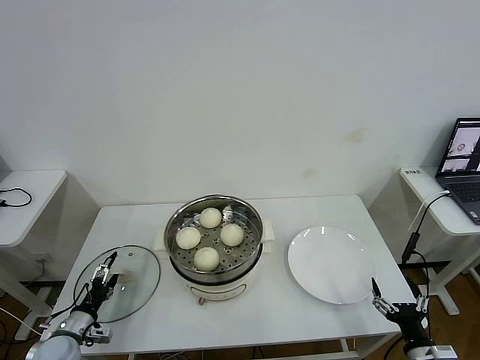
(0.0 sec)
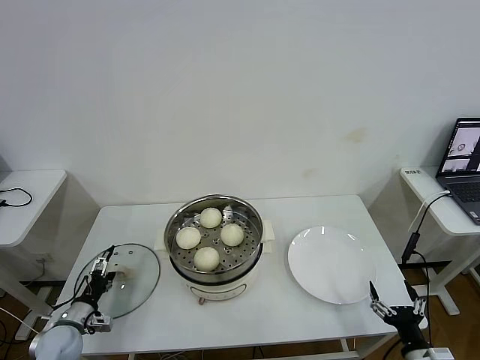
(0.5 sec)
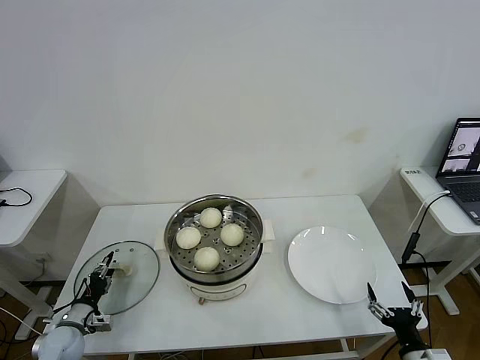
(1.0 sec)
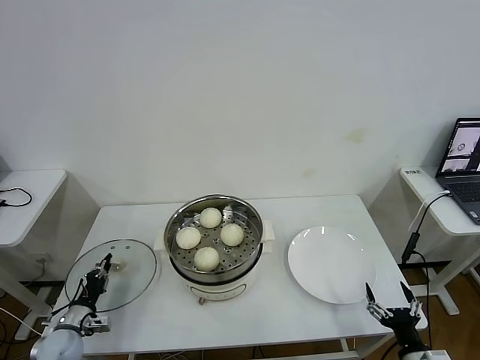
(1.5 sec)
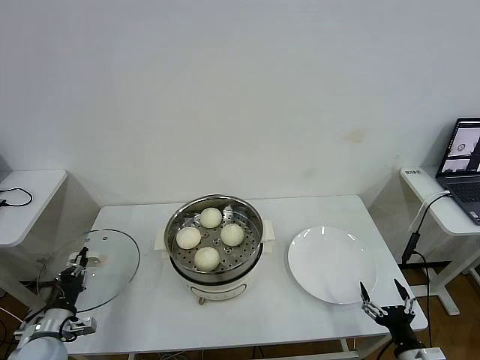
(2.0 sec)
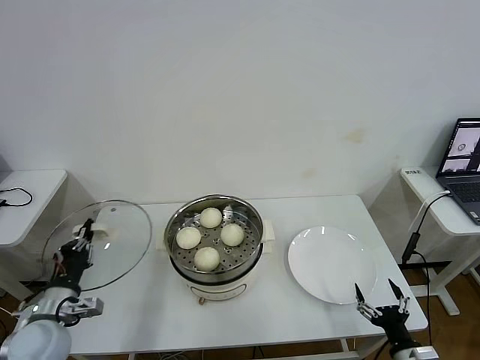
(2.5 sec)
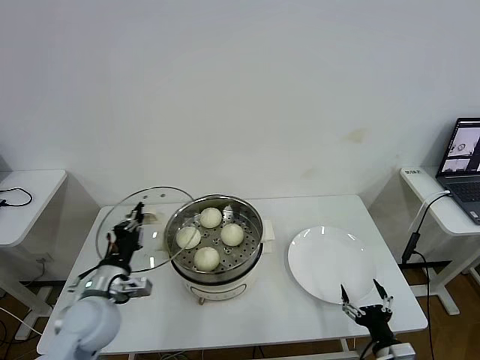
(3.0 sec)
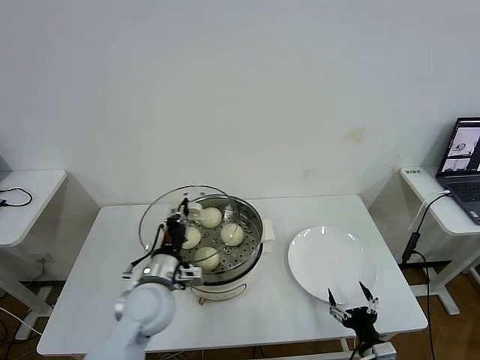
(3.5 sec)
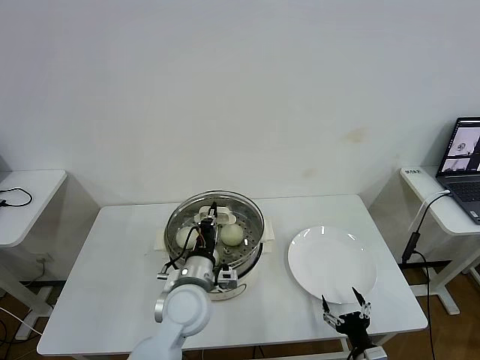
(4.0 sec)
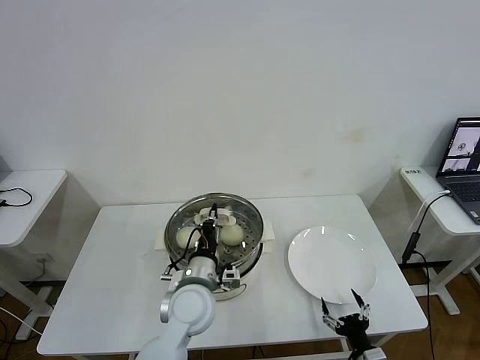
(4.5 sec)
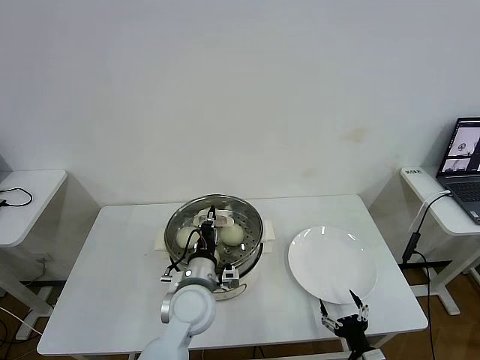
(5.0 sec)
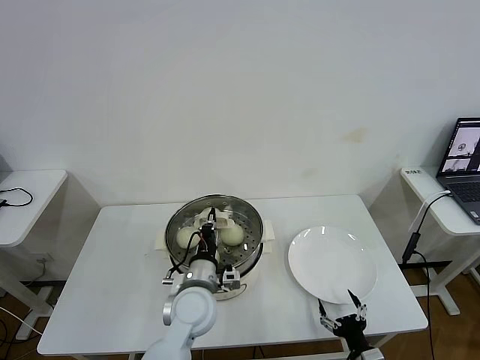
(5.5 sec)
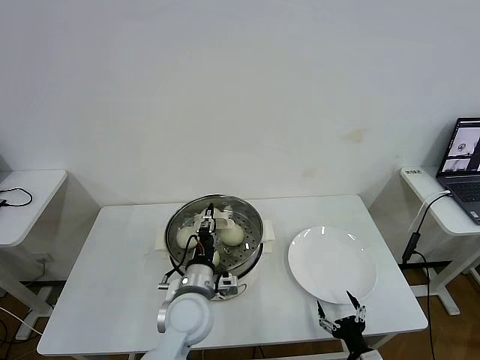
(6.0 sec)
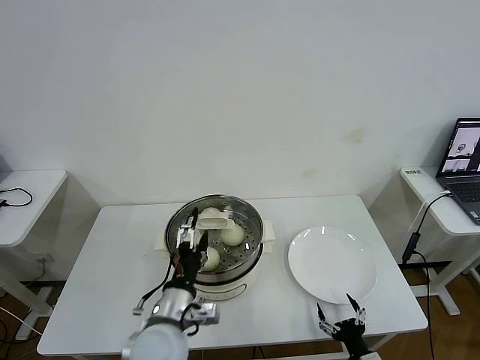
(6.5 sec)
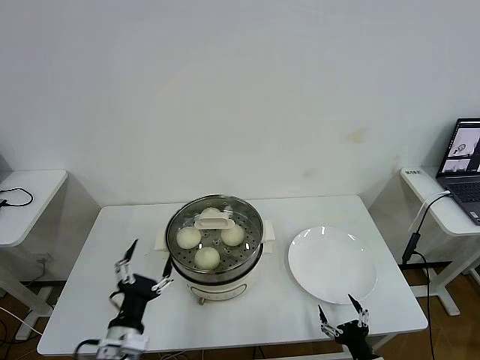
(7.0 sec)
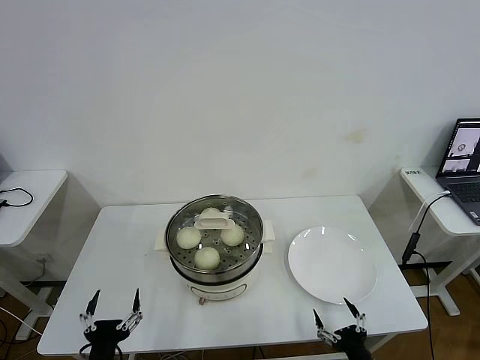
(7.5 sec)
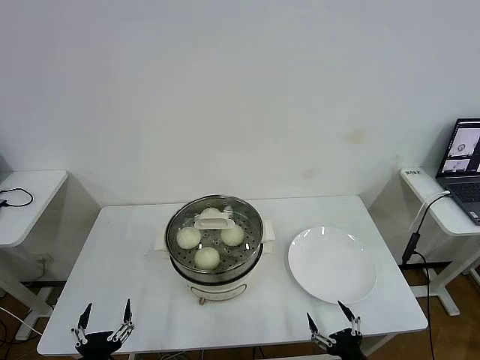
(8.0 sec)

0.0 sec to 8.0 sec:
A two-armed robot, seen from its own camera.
Task of the whole recording: take steamed baozi put them in steamer then cover it.
Step, 2.0 sec to 6.0 sec: Place the pot lid on the steamer with left gripper.
0.0 sec to 2.0 sec: The left gripper closes up.
2.0 sec to 4.0 sec: The left gripper is displaced to the right by roughly 30 cm. The right gripper is displaced to the left by approximately 5 cm.
4.0 sec to 6.0 sec: The left gripper opens up.
6.0 sec to 8.0 sec: The left gripper goes roughly 30 cm backward and to the left, and opens its fingers. The right gripper shifts approximately 5 cm upward.

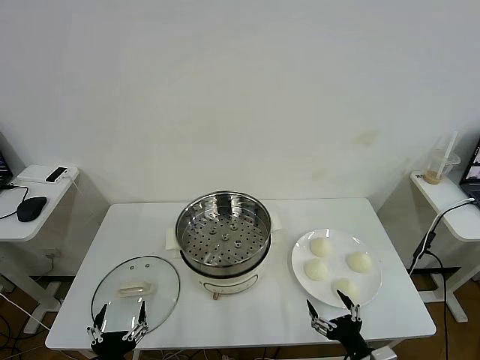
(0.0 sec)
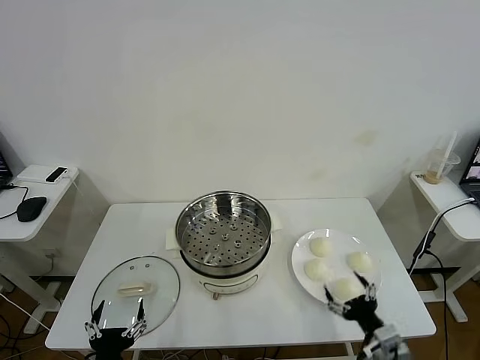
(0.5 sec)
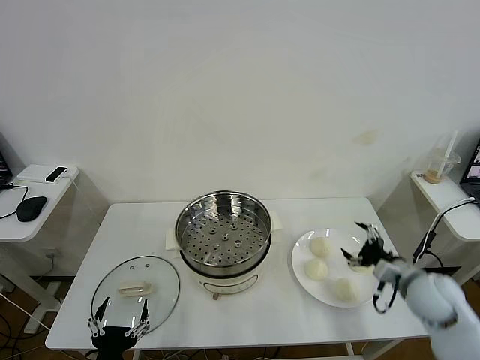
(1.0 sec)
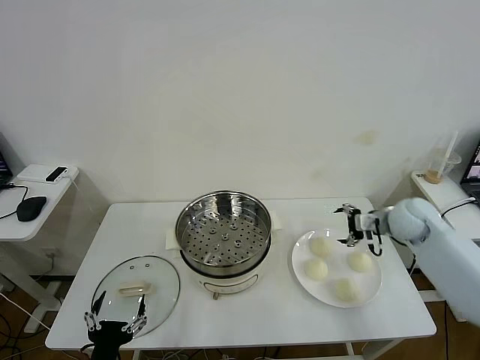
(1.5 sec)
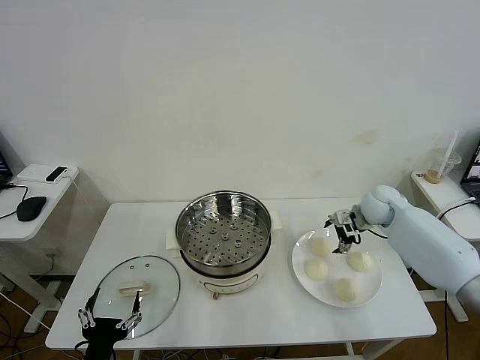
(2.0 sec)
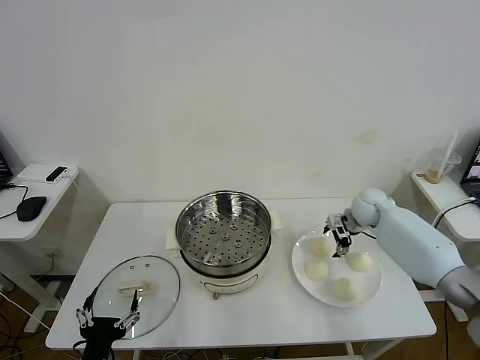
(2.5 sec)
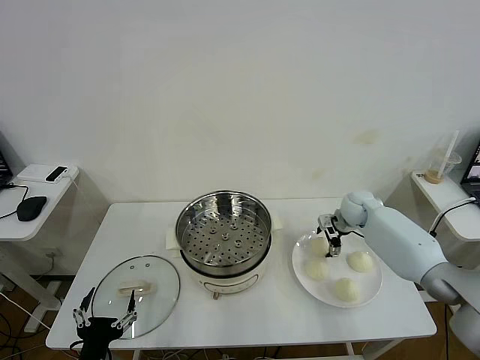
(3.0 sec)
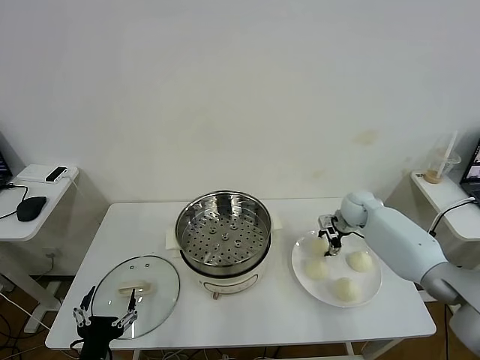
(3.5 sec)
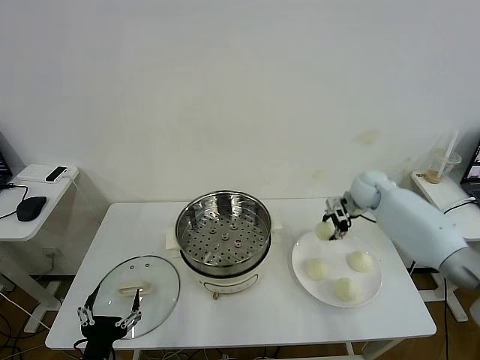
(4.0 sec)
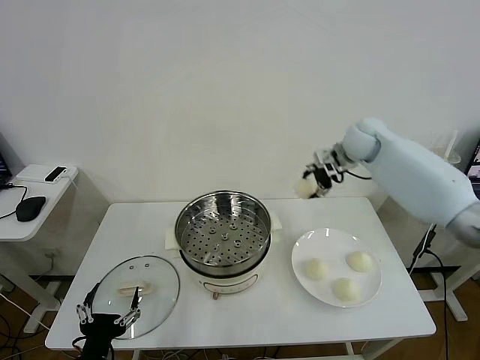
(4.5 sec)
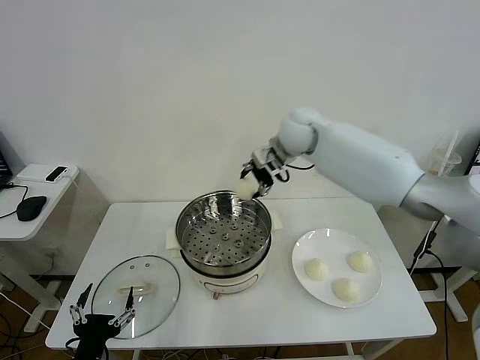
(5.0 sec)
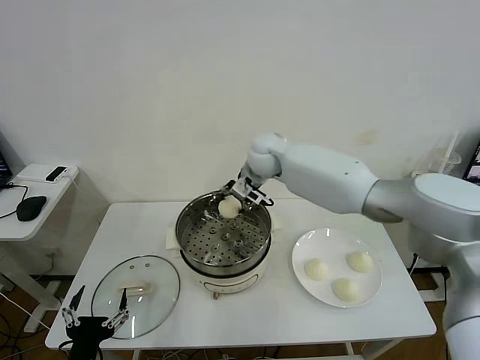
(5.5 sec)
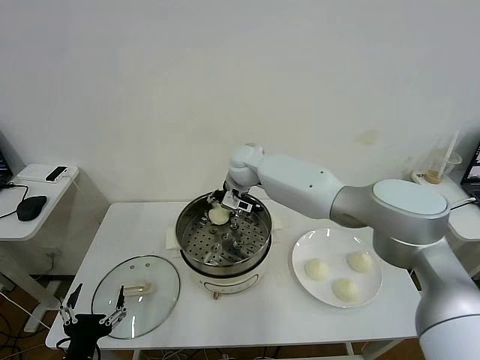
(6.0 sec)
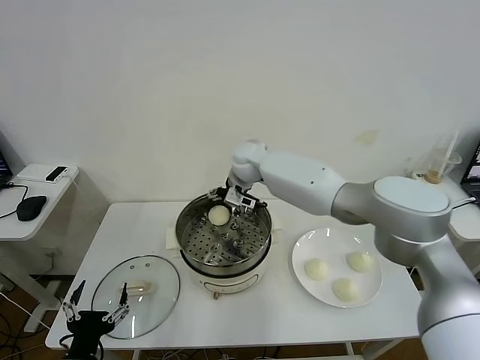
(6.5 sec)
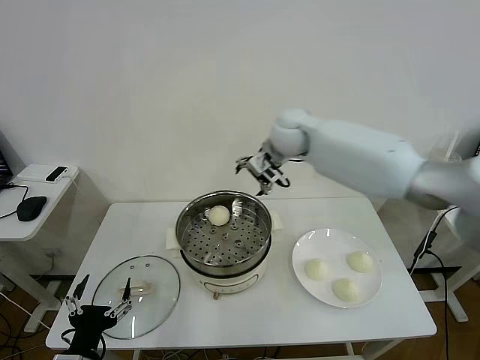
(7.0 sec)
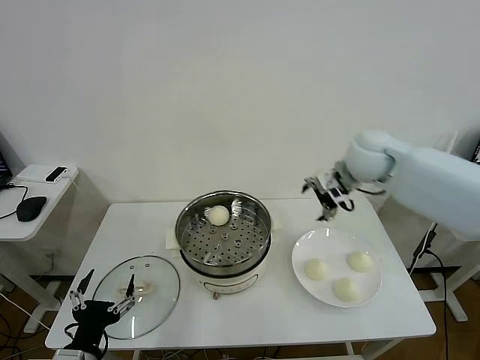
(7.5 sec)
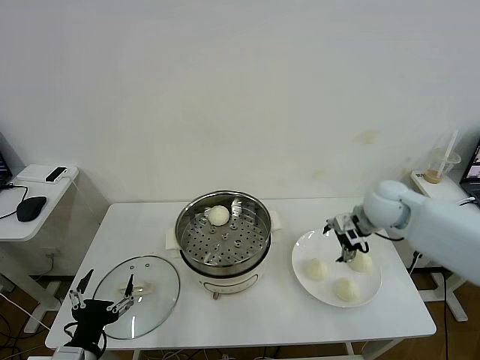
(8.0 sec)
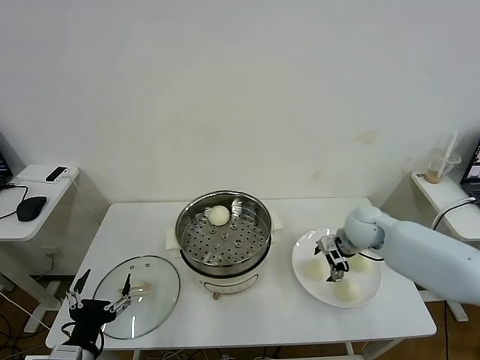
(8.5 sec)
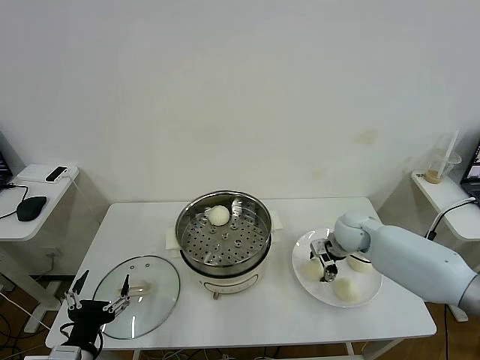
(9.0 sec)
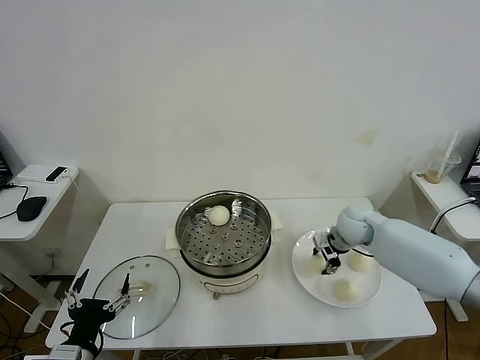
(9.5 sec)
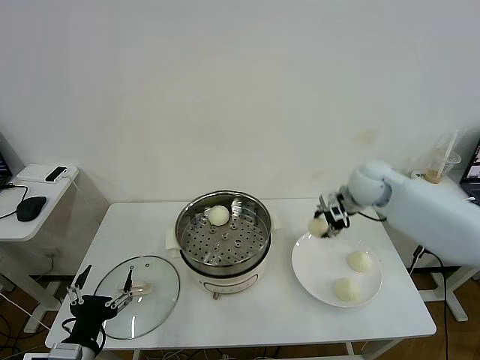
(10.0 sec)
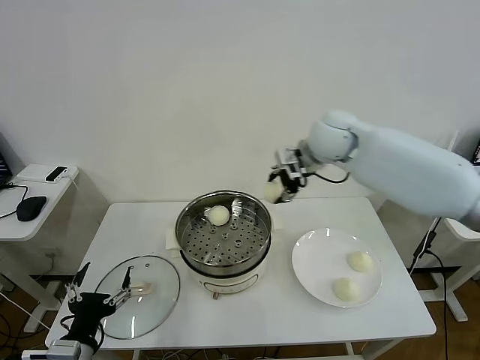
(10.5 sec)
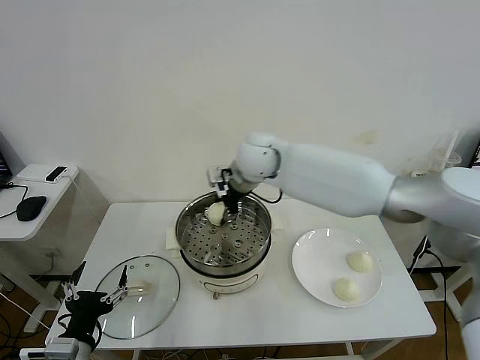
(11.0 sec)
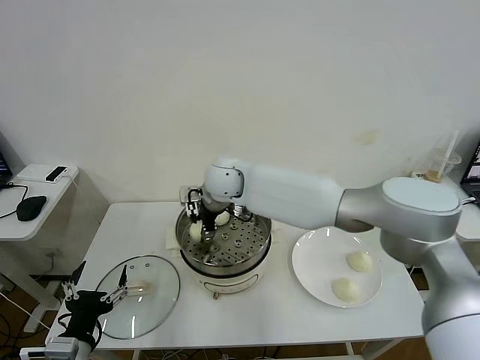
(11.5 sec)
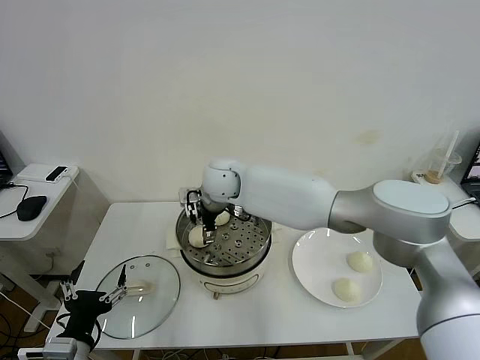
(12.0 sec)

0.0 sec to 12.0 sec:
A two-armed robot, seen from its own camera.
Task of the whole recording: take steamed baozi put them in steamer then cover it.
Step, 0.0 sec to 3.5 sec: Grasp the baozi in the plate with right gripper.
Step, 4.0 sec to 6.0 sec: Place the baozi on the steamer with right gripper.
Step, 6.5 sec to 9.0 sec: Grasp the baozi in the plate with right gripper.
Step, 9.5 sec to 12.0 sec: Place the baozi on the steamer with right gripper.
2.0 sec to 4.0 sec: The right gripper is displaced upward by about 5 cm, and closes up.
4.0 sec to 6.0 sec: The right gripper is displaced to the left by about 30 cm.
6.0 sec to 8.0 sec: The right gripper goes approximately 35 cm to the right and backward, and opens.
8.0 sec to 10.0 sec: The right gripper travels upward and forward by approximately 10 cm, and closes its fingers.
10.0 sec to 12.0 sec: The right gripper is displaced to the left by some 30 cm, and opens up.

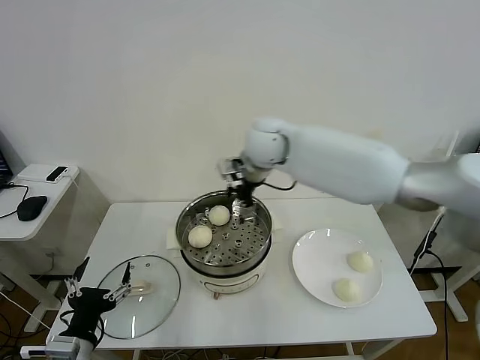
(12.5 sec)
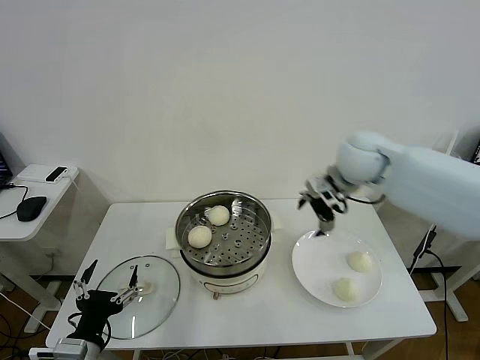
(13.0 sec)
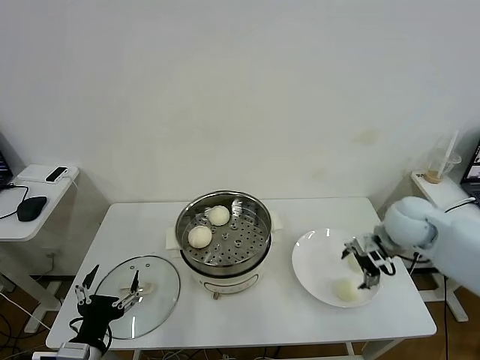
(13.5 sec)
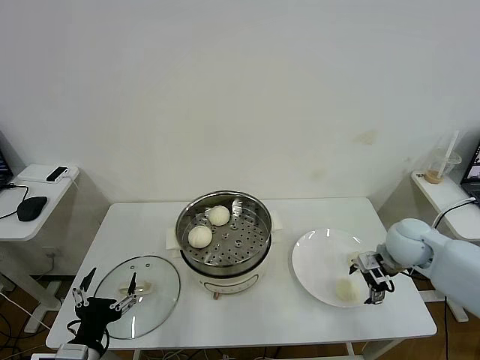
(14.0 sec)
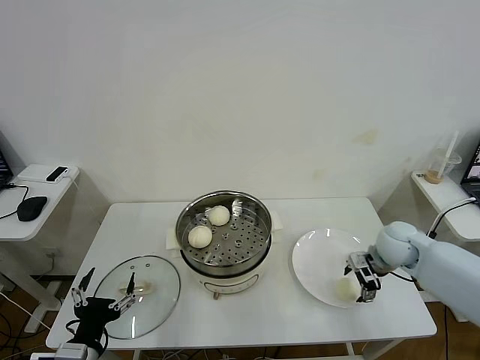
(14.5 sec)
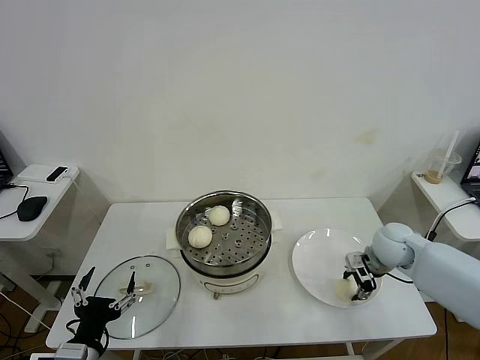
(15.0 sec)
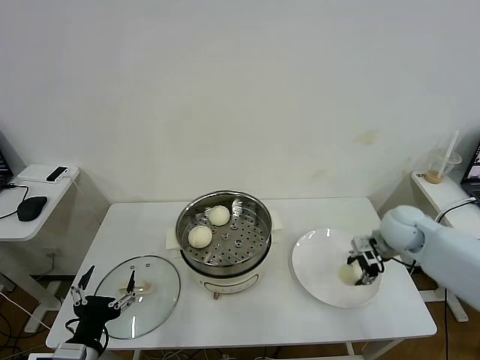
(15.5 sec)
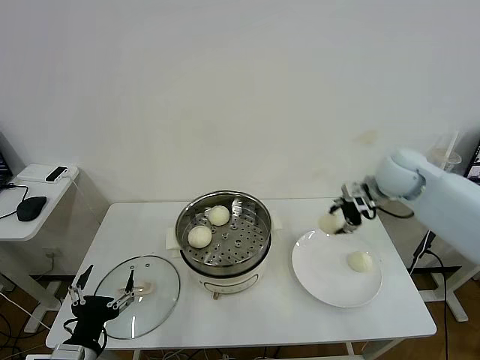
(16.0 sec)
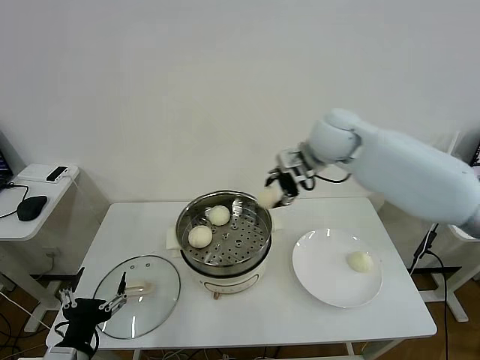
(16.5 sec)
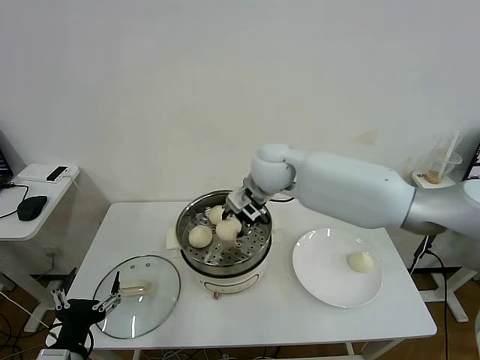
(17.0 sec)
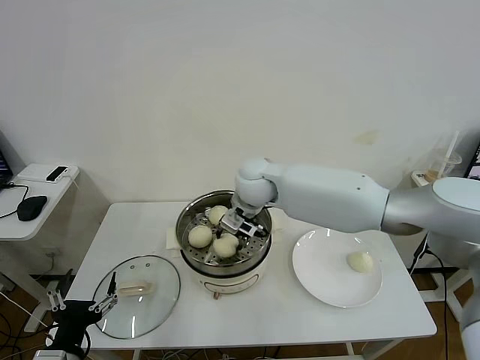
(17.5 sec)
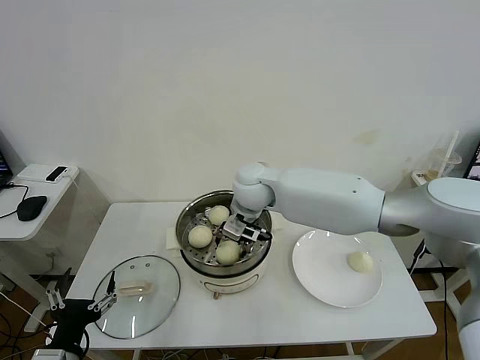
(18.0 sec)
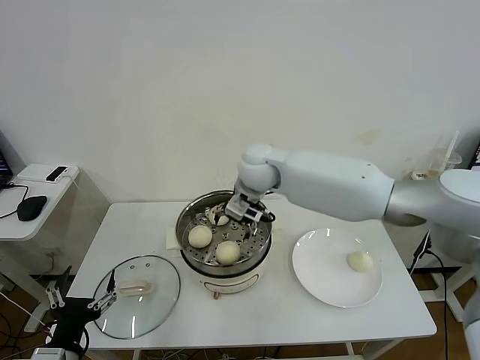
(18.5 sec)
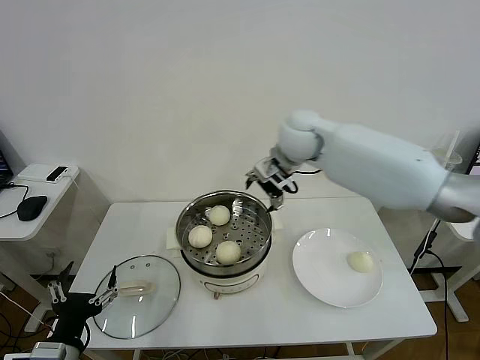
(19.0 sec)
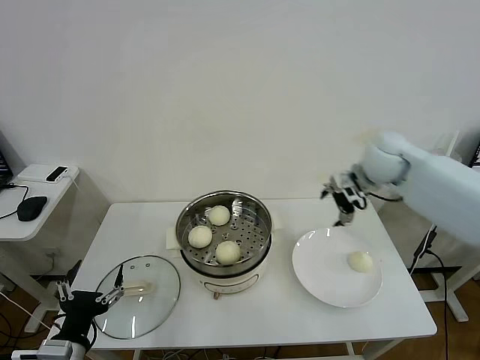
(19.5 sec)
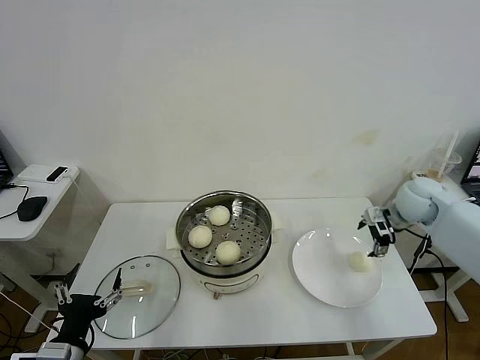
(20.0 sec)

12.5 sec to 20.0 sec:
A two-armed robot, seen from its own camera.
Task of the whole recording: take steamed baozi put them in steamer then cover it.
Step, 12.5 sec to 15.0 sec: Grasp the baozi in the plate with right gripper.
Step, 15.5 sec to 18.0 sec: Place the baozi on the steamer with right gripper.
12.5 sec to 14.5 sec: The right gripper shifts about 35 cm to the right and downward.
14.5 sec to 16.5 sec: The right gripper is displaced upward, to the left and forward by roughly 30 cm, and closes.
16.5 sec to 18.0 sec: The right gripper travels to the left and downward by roughly 20 cm, and opens.
18.0 sec to 20.0 sec: The right gripper is displaced to the right by roughly 40 cm, and opens.
